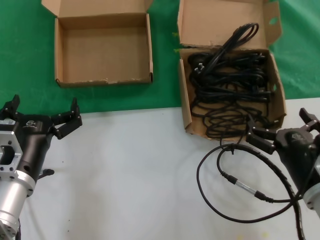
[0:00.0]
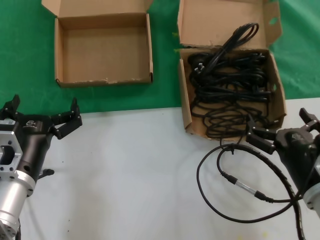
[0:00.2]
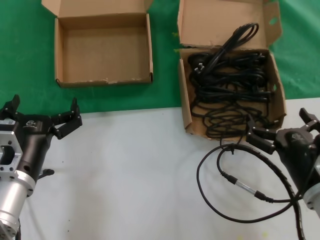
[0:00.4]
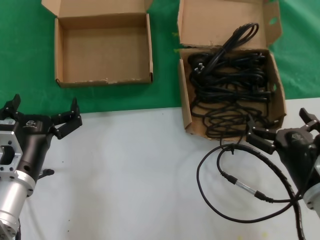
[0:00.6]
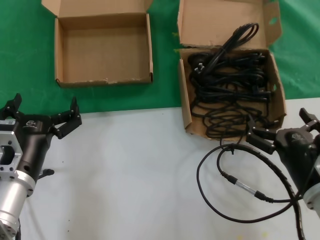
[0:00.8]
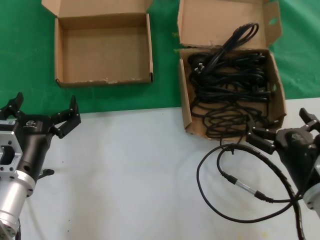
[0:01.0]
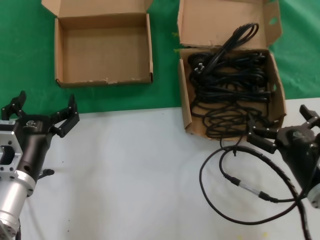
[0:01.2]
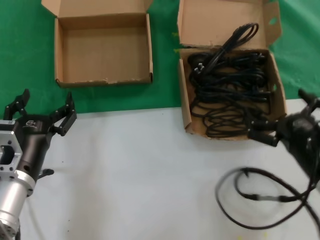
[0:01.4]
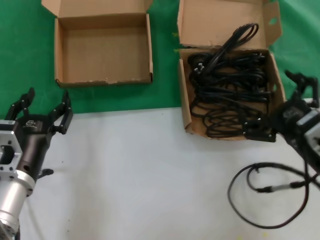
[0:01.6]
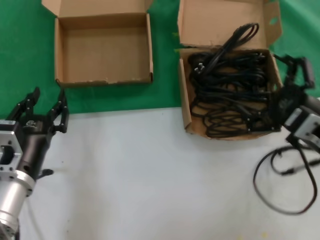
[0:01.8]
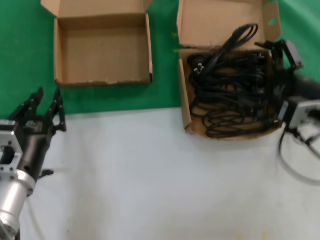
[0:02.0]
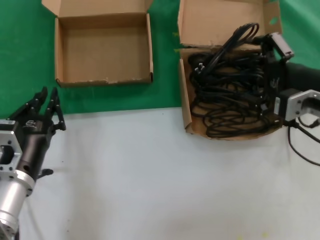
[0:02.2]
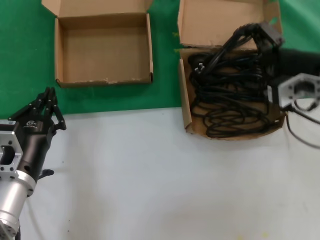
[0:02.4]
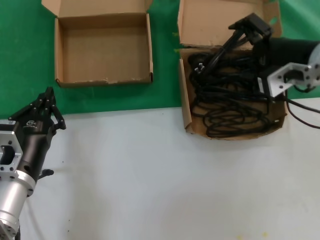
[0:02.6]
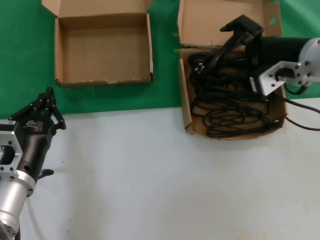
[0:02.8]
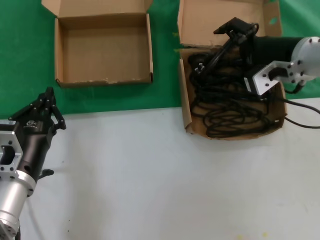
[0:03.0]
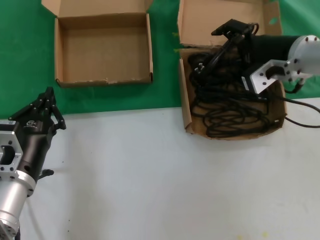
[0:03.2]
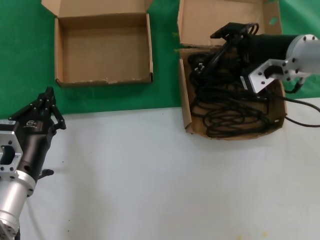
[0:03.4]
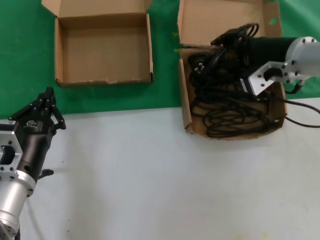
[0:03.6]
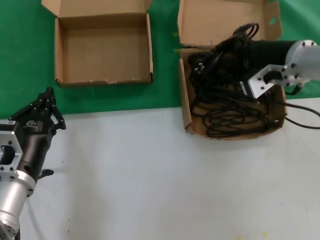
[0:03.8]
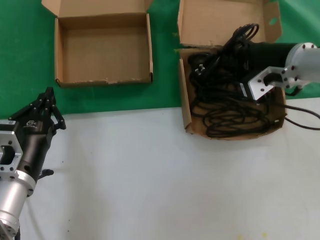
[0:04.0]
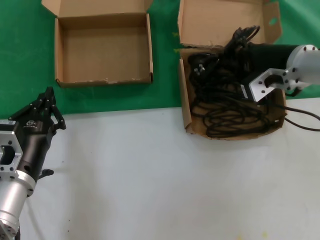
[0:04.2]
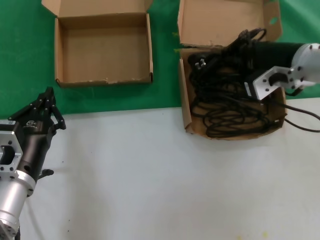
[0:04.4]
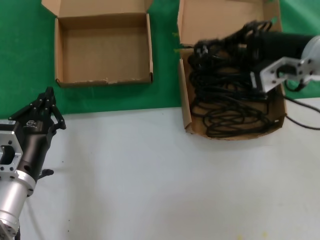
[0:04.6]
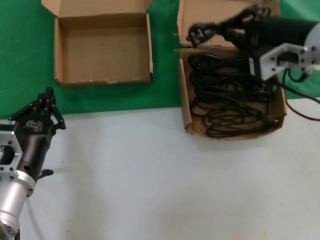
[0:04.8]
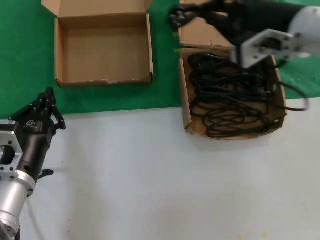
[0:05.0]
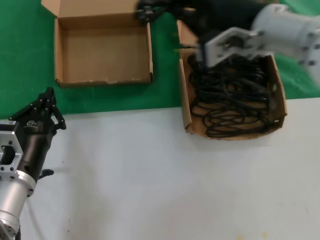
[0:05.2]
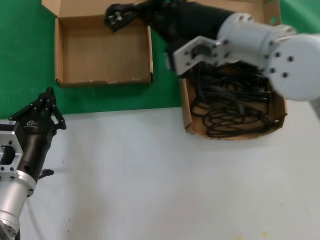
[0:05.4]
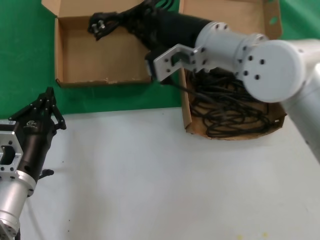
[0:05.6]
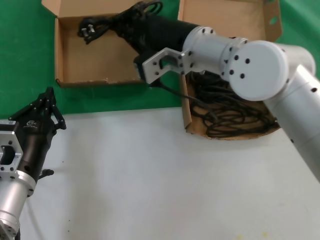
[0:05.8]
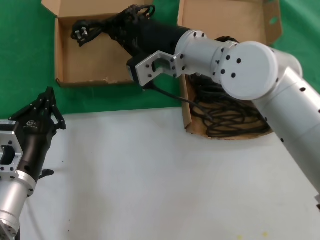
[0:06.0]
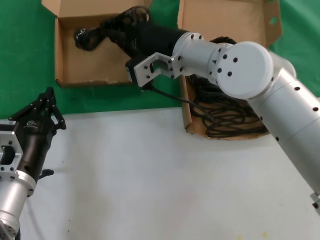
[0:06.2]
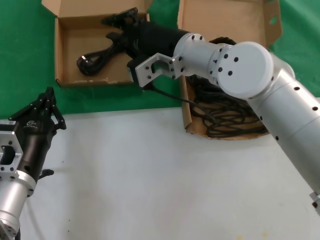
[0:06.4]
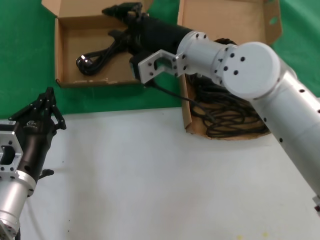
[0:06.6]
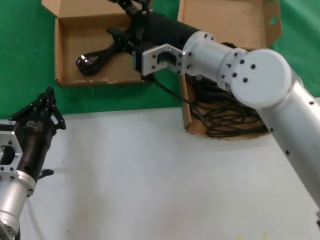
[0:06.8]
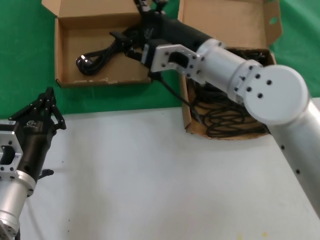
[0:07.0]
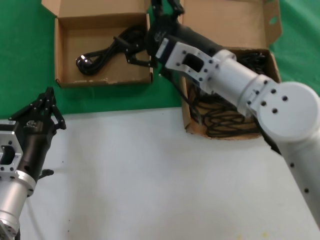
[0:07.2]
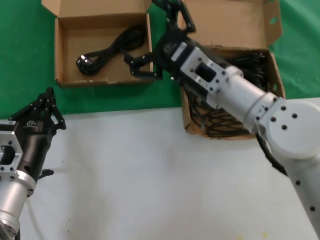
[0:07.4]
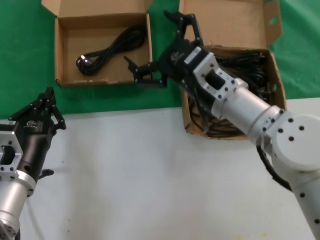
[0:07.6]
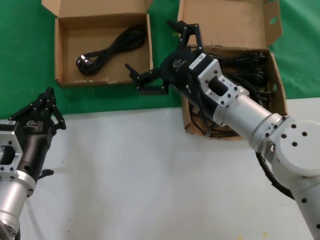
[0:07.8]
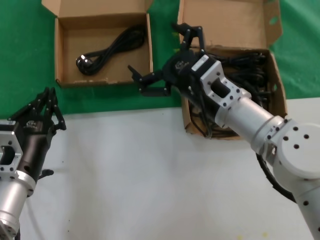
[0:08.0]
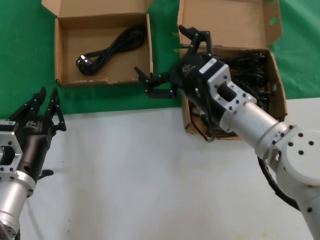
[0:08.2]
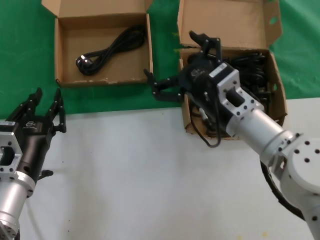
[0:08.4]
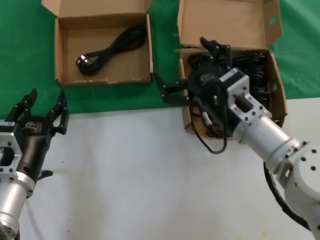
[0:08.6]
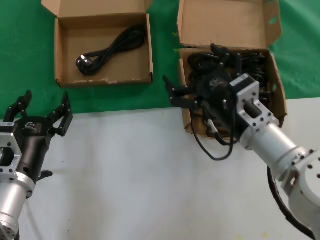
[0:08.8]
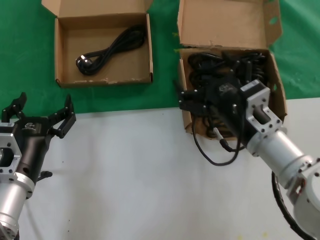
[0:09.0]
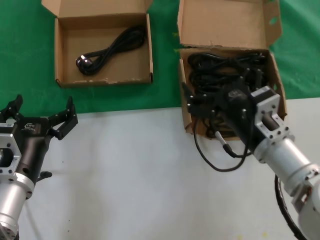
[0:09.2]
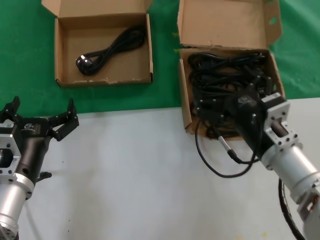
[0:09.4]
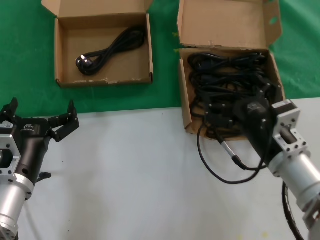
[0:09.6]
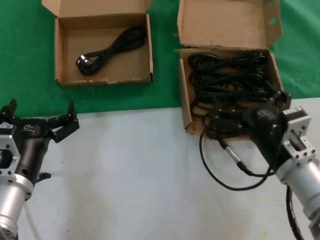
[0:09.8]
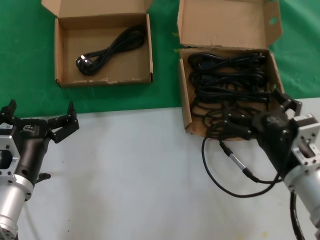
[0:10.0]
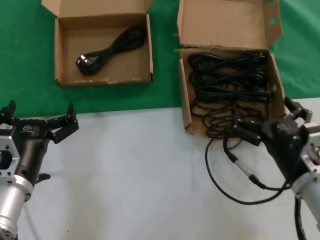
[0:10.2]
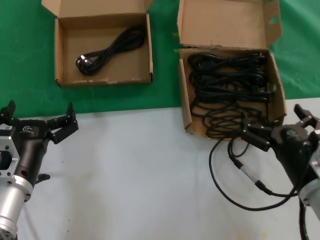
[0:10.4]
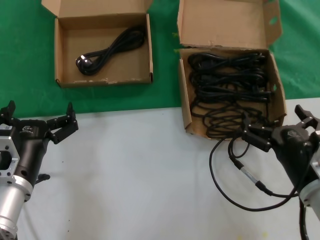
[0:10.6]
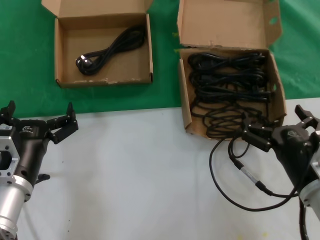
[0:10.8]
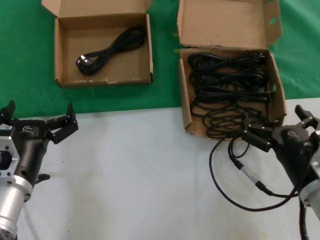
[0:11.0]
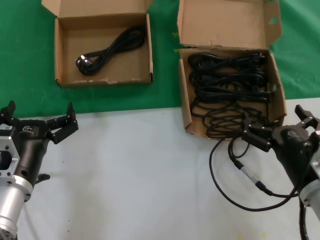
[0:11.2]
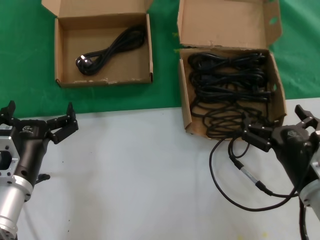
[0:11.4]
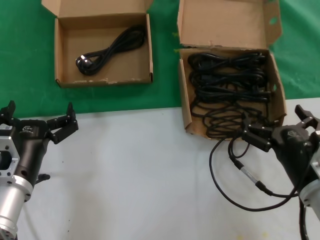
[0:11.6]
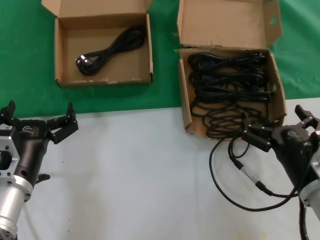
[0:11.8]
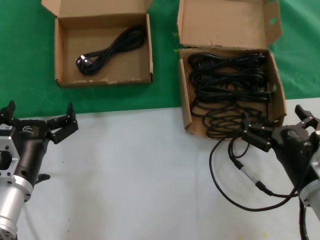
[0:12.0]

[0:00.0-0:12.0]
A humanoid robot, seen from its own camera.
Task of the whole recording: take the parts from the box containing them and put them into an empty box.
Step, 0:00.0 to 0:04.0: Grasp the data cable.
Step, 0:04.2 to 0:06.2: Place the data cable in the another box.
0:00.0 to 0:01.6: The right hand is displaced upward by roughly 5 cm.
0:01.6 to 0:03.0: The right hand shifts some 20 cm forward and upward.
0:03.0 to 0:04.4: The hands move only a little.
0:04.4 to 0:06.0: The right hand heads to the left, covering some 20 cm.
0:06.0 to 0:07.6: The right hand travels downward, backward and to the right by some 10 cm.
0:07.6 to 0:09.0: The right hand goes roughly 10 cm downward and to the right.
0:09.0 to 0:10.4: The right hand heads to the right, backward and downward, covering approximately 10 cm.
0:10.4 to 0:12.0: Neither hand changes place.

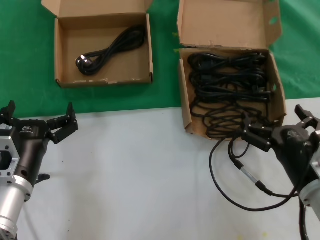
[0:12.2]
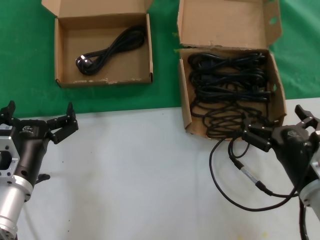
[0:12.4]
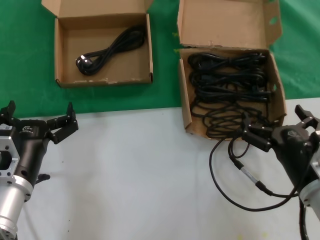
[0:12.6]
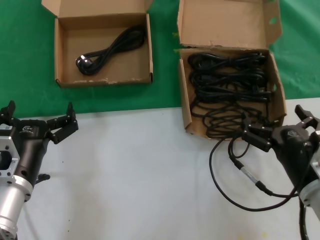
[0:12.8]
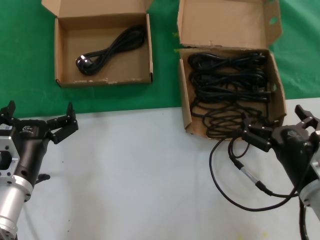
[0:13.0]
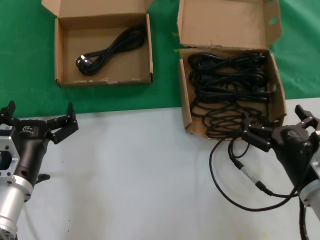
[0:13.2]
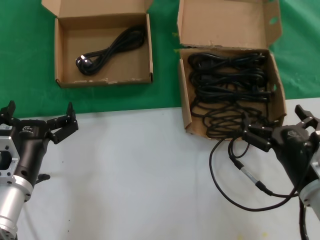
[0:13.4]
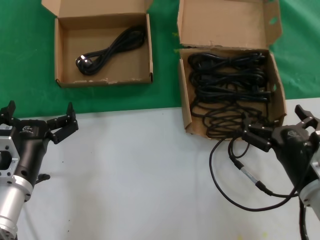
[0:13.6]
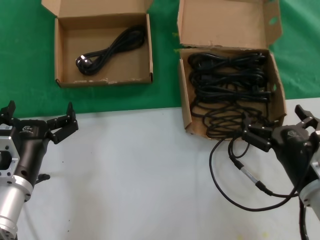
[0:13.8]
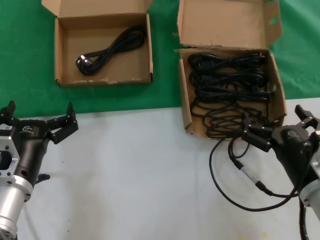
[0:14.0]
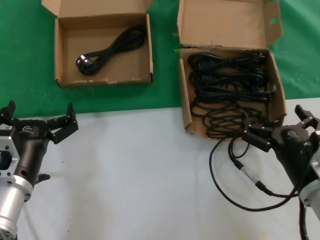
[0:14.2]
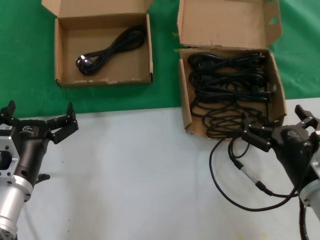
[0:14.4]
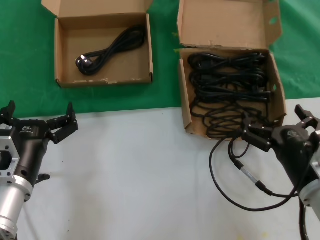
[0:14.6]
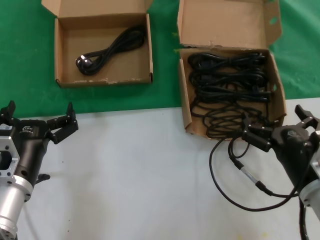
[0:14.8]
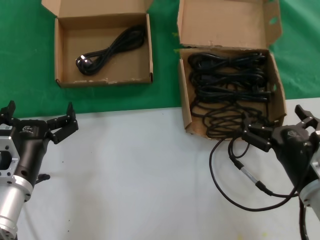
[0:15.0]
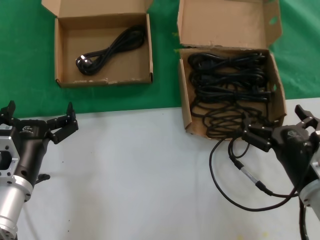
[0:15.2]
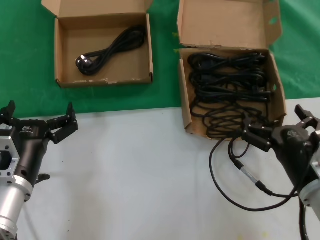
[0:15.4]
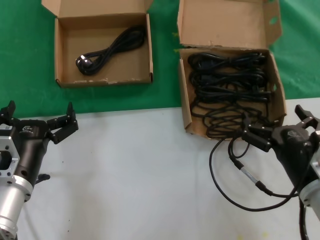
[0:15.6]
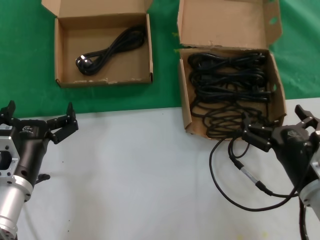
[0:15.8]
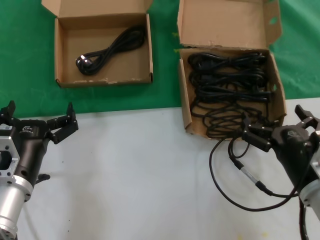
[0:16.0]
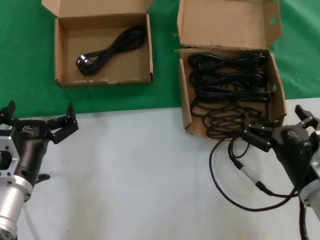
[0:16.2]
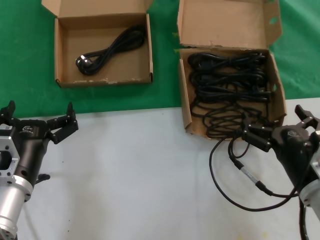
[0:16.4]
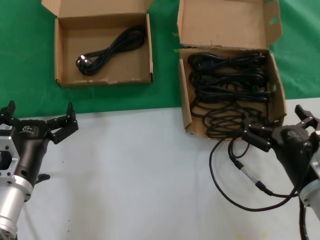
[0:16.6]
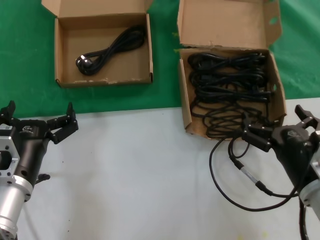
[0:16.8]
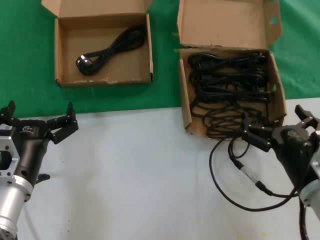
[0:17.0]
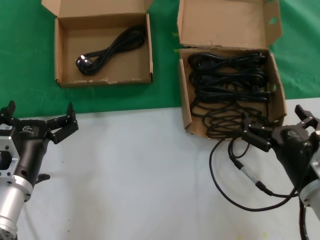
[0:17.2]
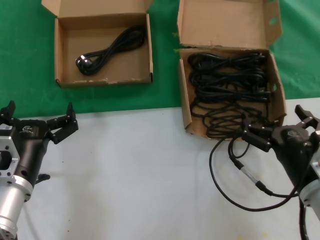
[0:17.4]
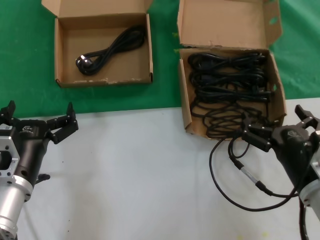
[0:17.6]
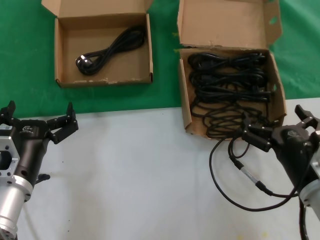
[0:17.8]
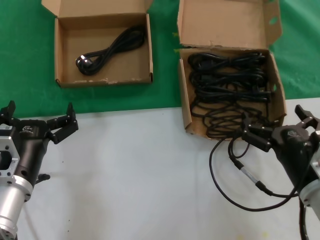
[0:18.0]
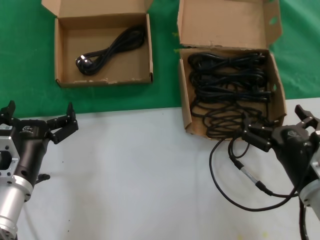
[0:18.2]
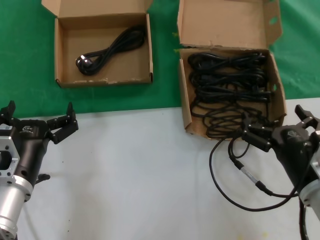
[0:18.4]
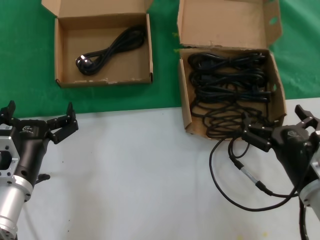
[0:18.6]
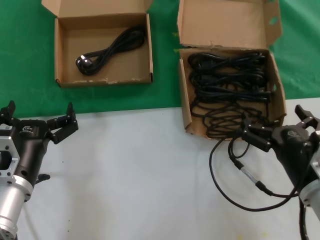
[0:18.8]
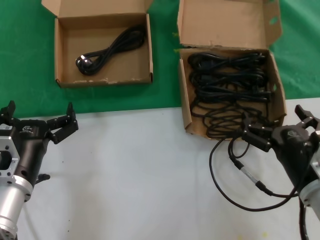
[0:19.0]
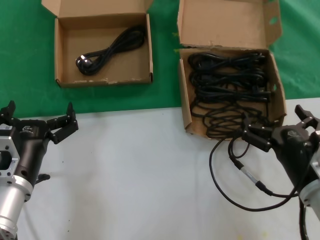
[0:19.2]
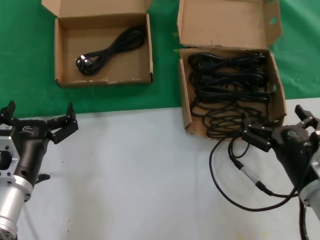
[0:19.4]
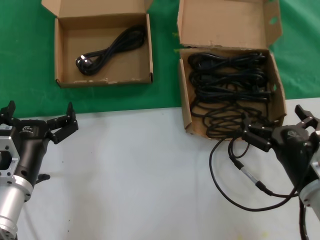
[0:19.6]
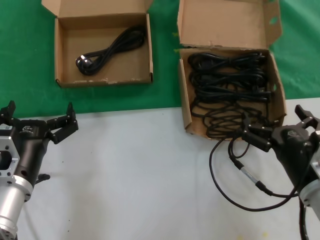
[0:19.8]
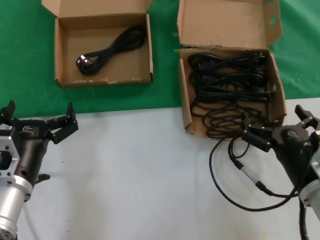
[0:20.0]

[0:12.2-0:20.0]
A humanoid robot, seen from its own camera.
Task of the whole recording: take the parts from the box containing them and put them into an empty box.
0:12.2 to 0:20.0: Both hands stay about where they are.
